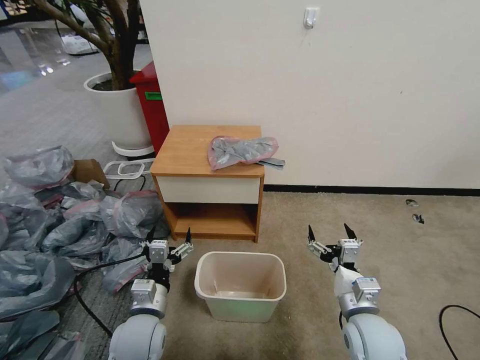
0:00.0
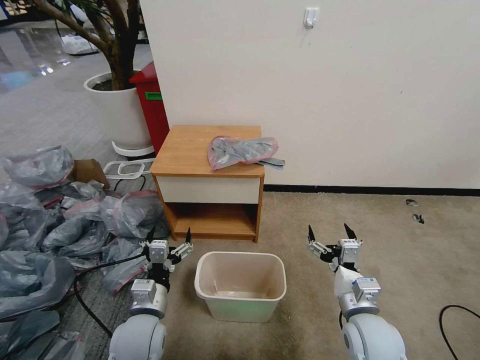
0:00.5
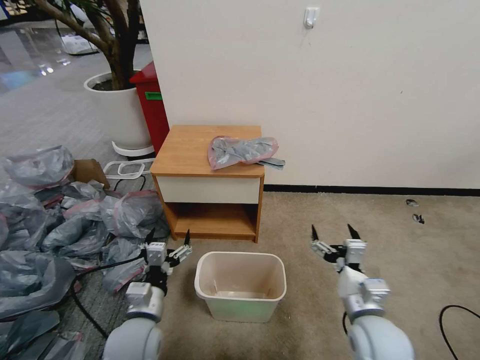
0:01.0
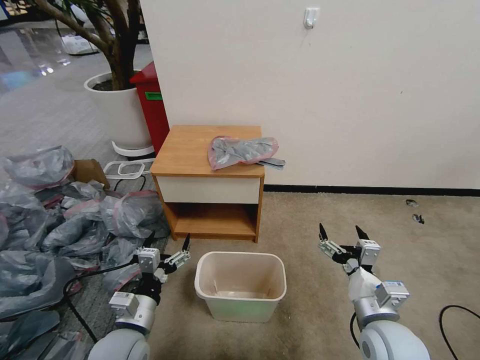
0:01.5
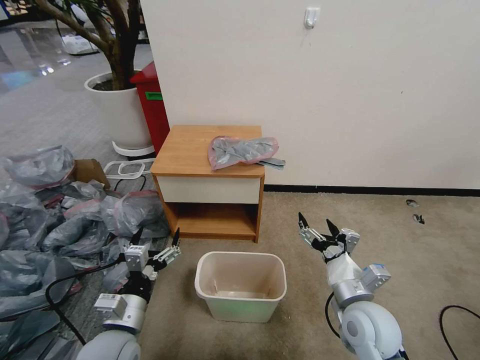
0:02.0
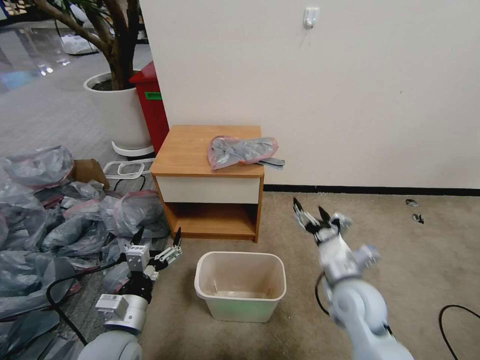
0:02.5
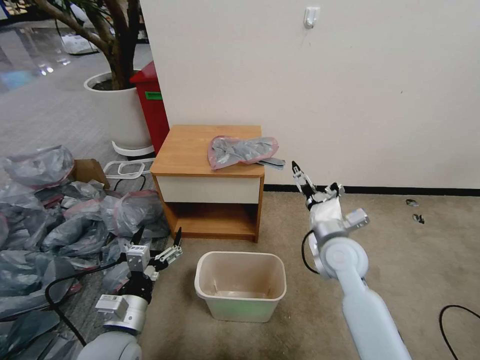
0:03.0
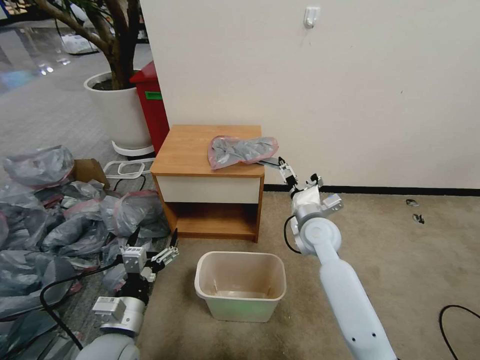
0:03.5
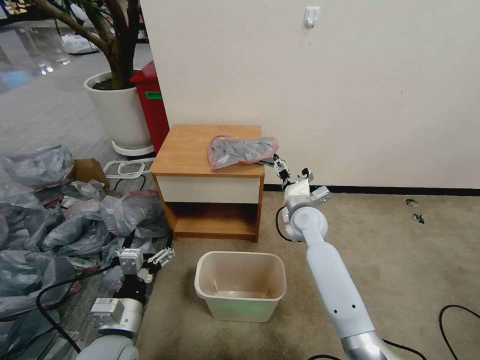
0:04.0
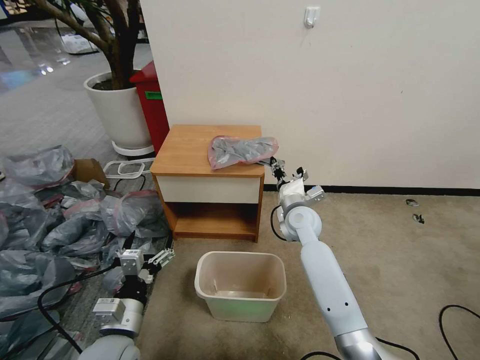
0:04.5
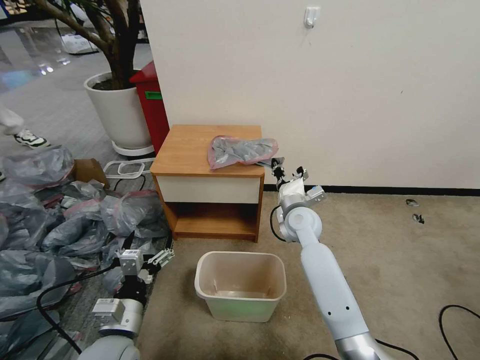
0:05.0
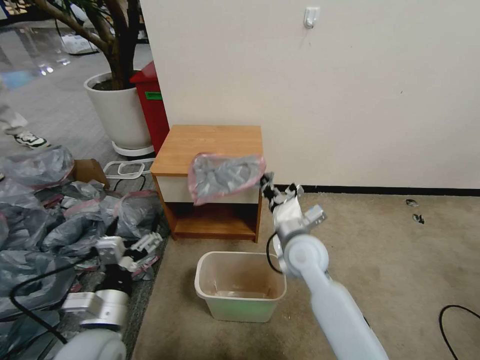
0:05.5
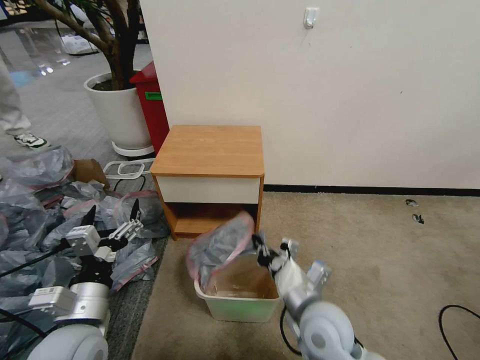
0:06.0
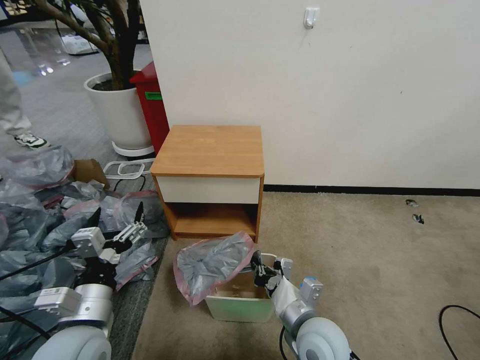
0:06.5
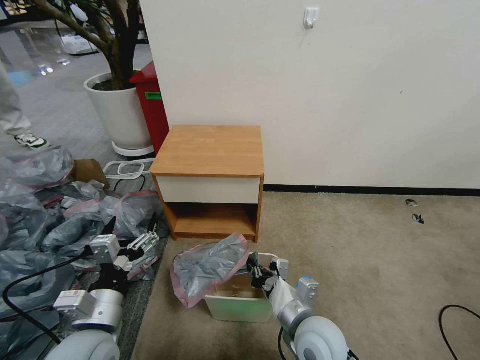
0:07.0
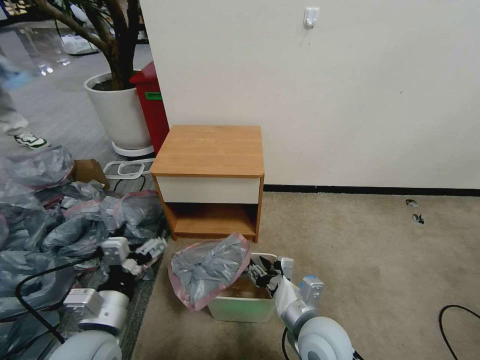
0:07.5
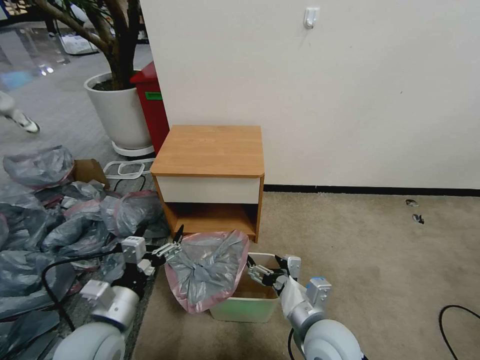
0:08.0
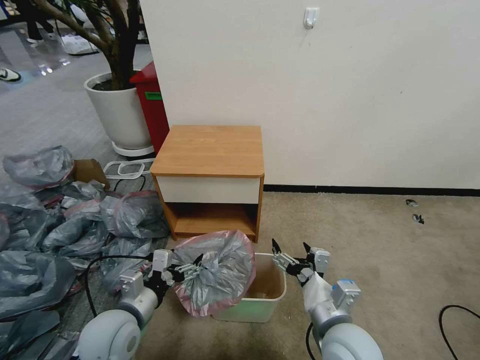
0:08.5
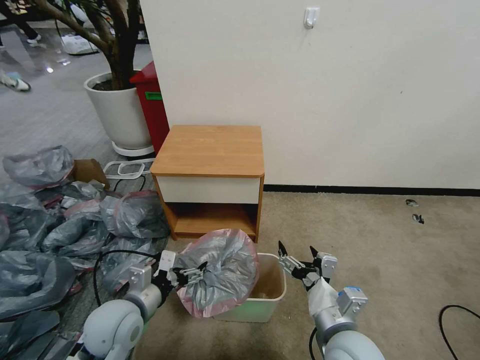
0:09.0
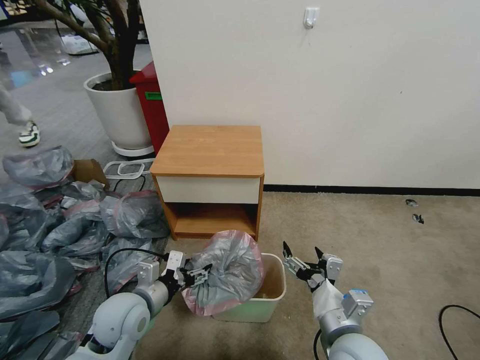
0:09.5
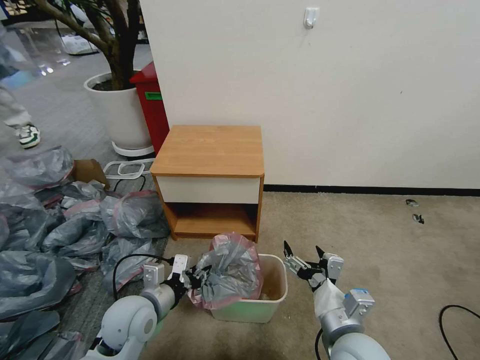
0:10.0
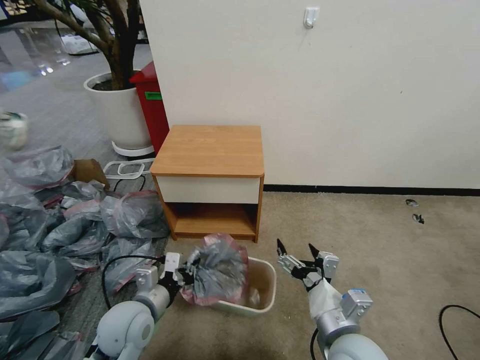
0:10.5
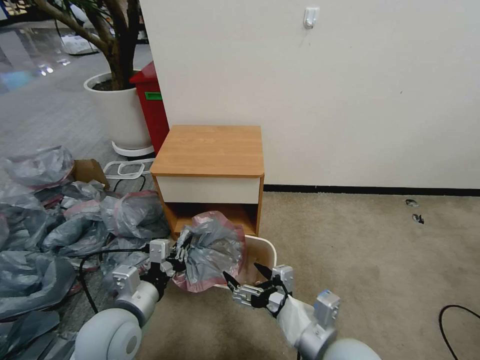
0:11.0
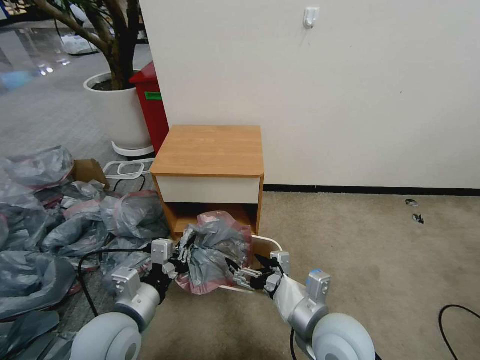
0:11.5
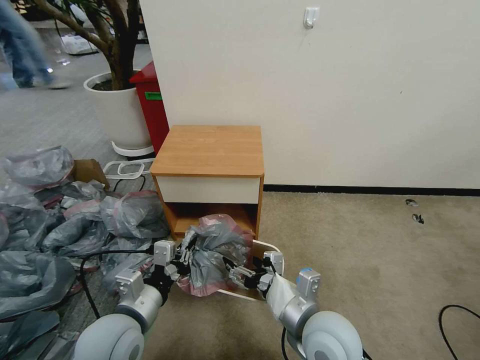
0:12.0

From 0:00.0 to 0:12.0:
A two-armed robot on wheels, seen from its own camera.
Task of the whole recording: Pick up the garbage bag from the table and place it over the trash can.
From 0:02.0 to 0:04.0: The right gripper heads forward, covering about 25 cm.
From 0:04.0 to 0:06.0: The right gripper moves backward, roughly 25 cm, and closes up; the left gripper shifts roughly 10 cm upward.
From 0:06.0 to 0:08.0: The right gripper opens.
From 0:08.0 to 0:10.0: The left gripper heads forward, covering approximately 5 cm, and closes its fingers.
From 0:10.0 to 0:12.0: The right gripper shifts some 5 cm to the left. Meanwhile the left gripper moves upward and backward, roughly 10 cm.

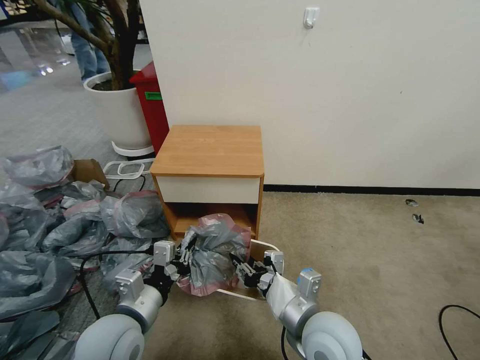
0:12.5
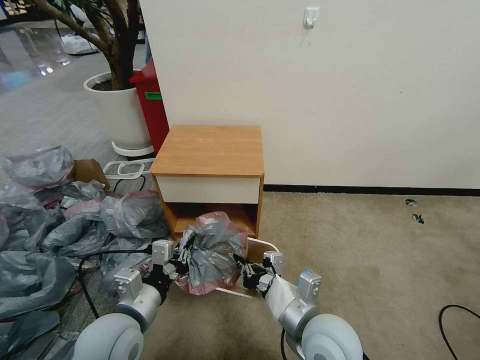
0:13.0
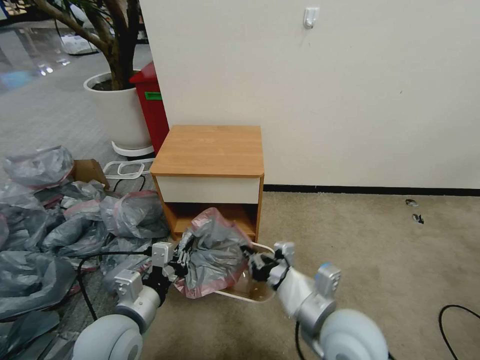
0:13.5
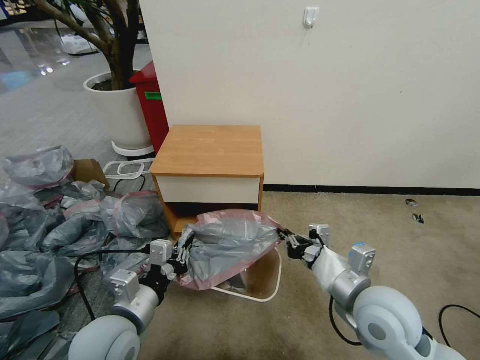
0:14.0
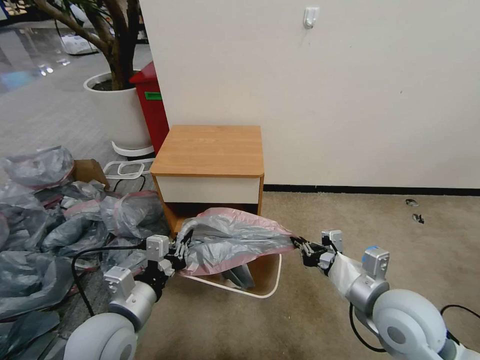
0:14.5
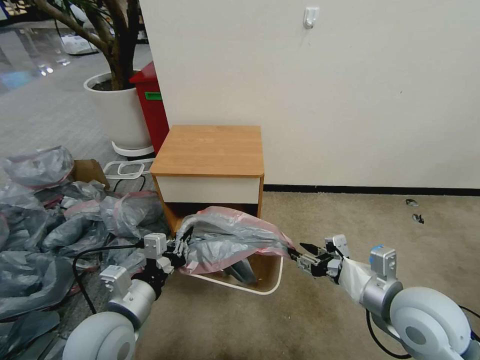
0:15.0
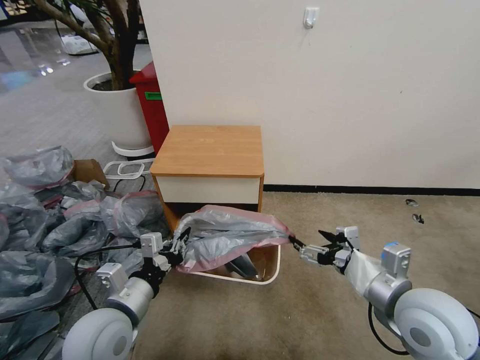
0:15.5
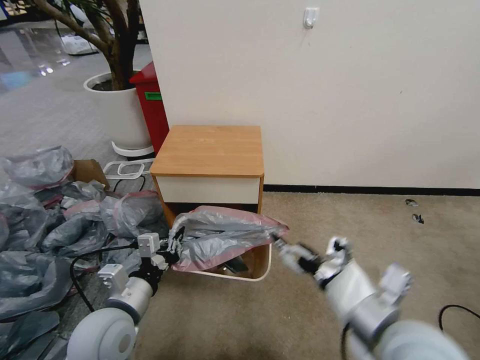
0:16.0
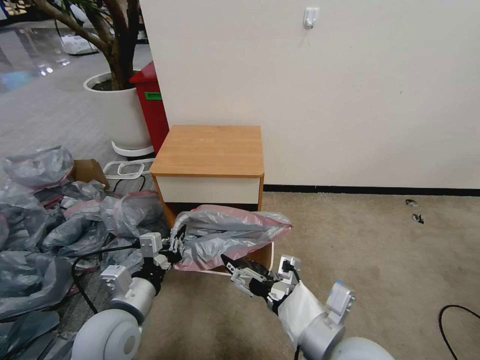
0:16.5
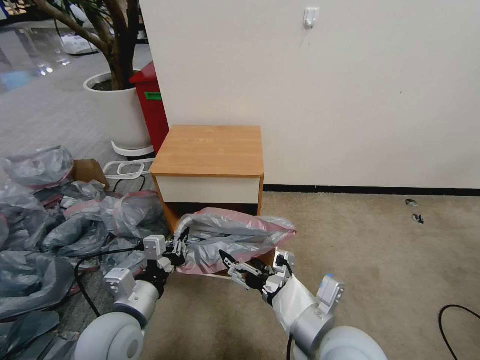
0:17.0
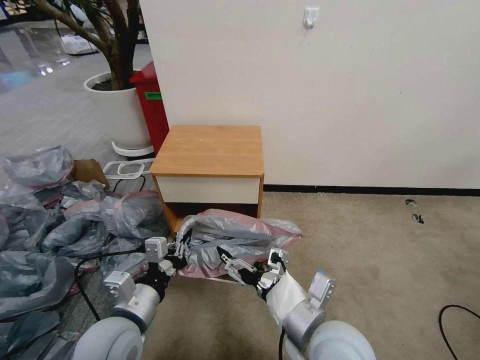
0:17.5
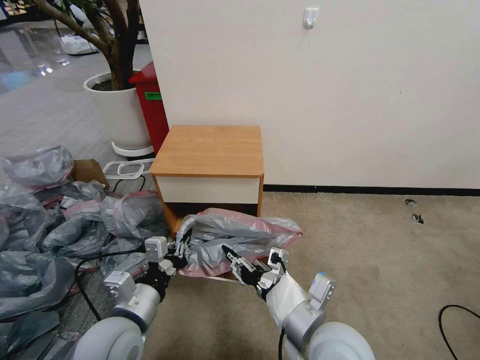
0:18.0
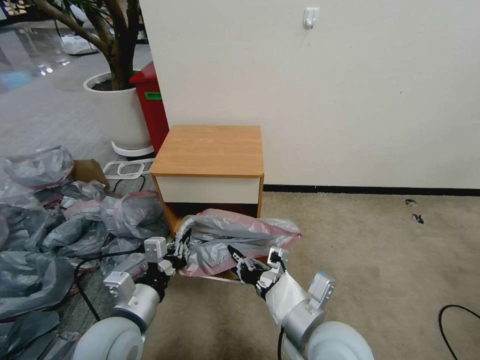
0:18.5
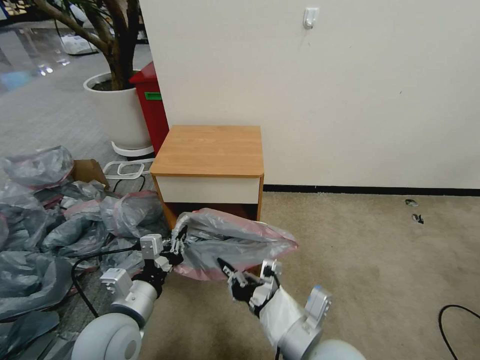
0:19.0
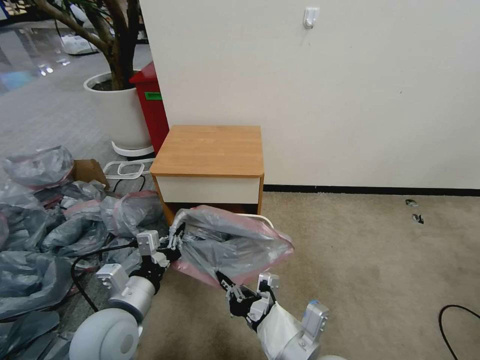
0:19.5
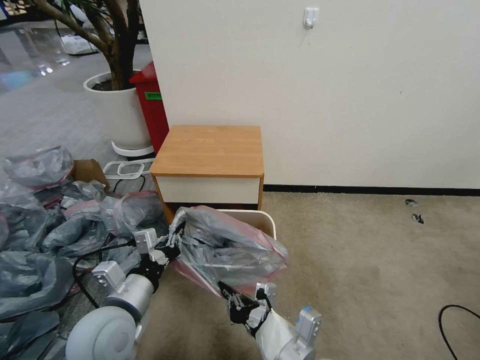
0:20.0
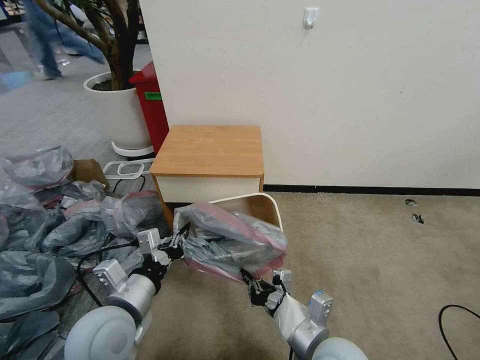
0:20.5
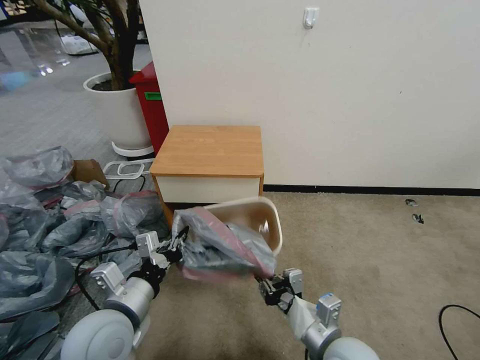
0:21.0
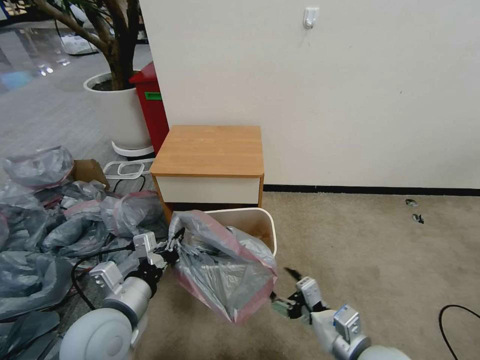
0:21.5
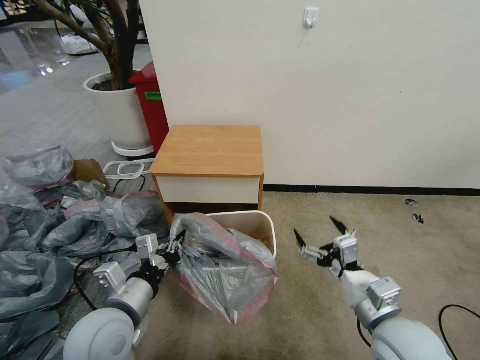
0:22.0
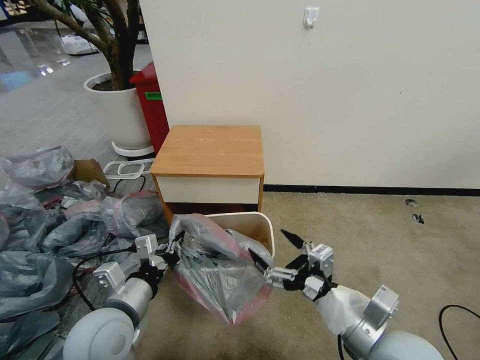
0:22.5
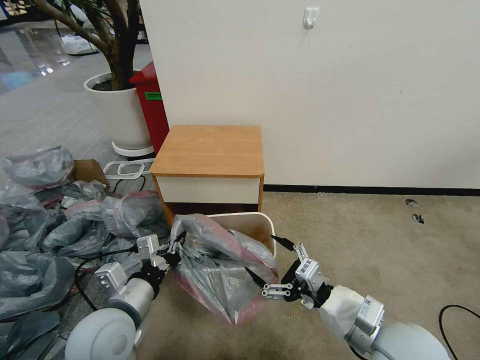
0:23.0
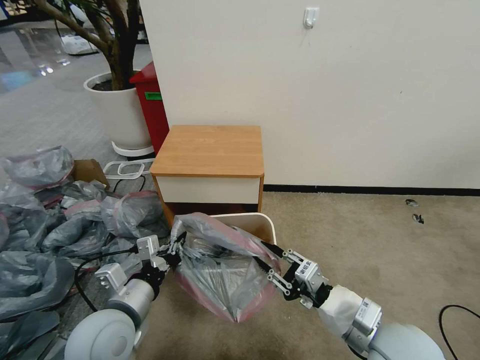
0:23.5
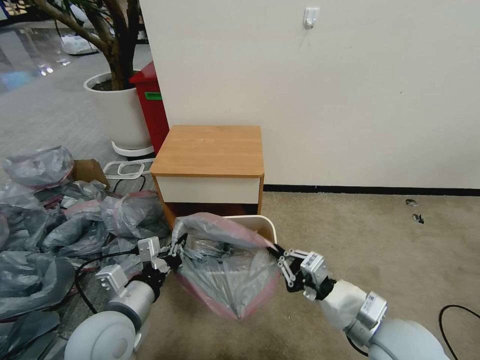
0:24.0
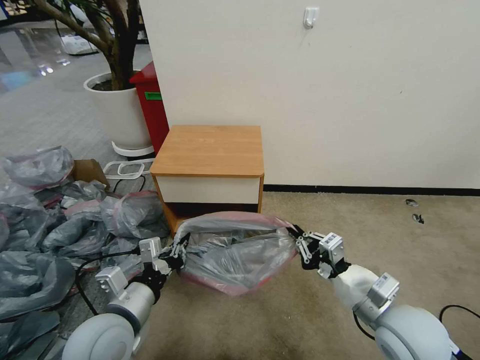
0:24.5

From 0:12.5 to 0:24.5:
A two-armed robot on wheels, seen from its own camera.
Task of the whole recording: Pick up the garbage bag from the table and place it over the trash can.
From 0:12.5 to 0:14.5: The right gripper is displaced to the right by some 10 cm.
From 0:14.5 to 0:16.5: The right gripper moves to the left and backward, some 15 cm, and opens.
From 0:16.5 to 0:18.5: The right gripper closes up.
From 0:18.5 to 0:20.5: The right gripper goes some 5 cm downward.
From 0:20.5 to 0:22.5: The right gripper moves upward and to the right, some 10 cm, and opens up.
From 0:22.5 to 0:24.5: The right gripper moves some 5 cm, and closes up.

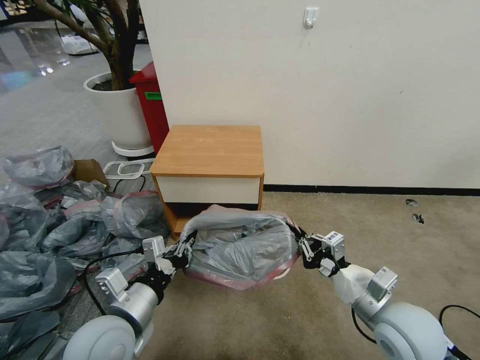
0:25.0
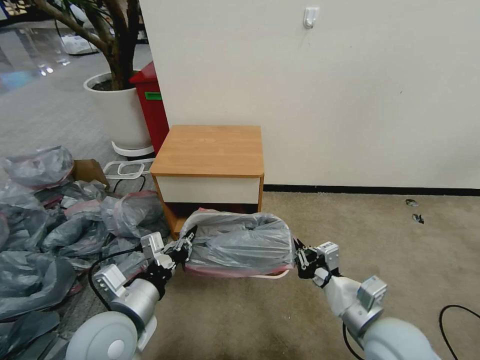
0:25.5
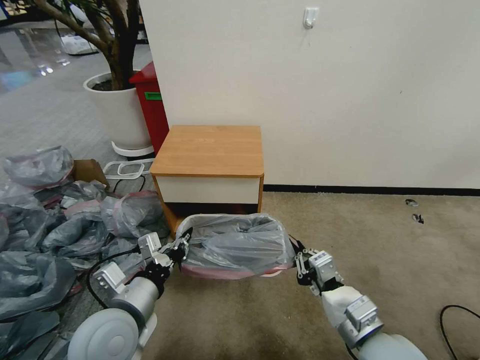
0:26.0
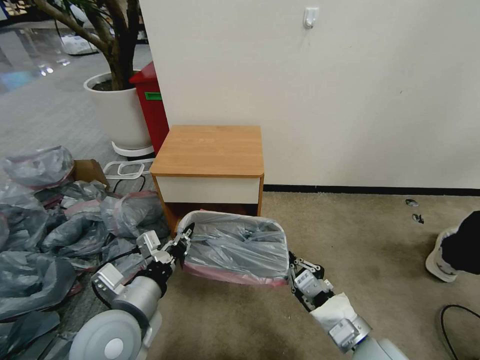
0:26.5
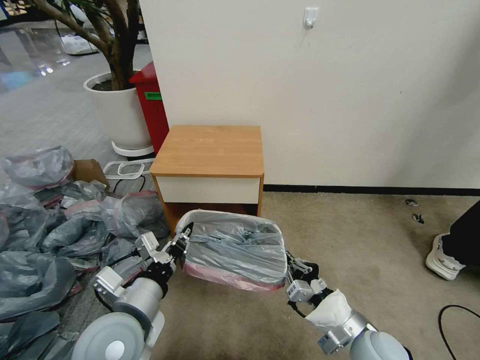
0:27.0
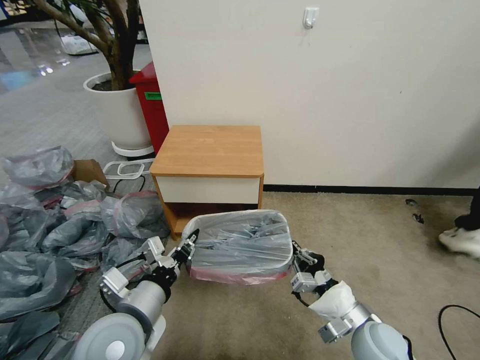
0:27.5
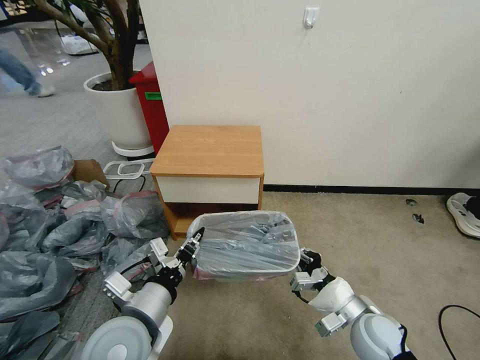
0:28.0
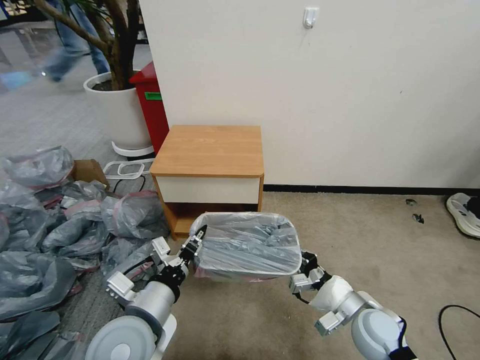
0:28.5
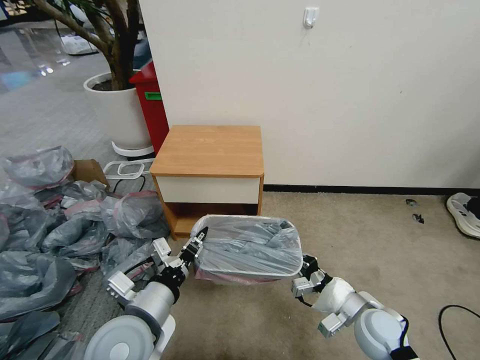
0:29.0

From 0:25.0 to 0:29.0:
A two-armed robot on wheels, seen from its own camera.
Task of the whole recording: Pick up the garbage bag from the table and place it over the trash can.
From 0:25.0 to 0:27.0: The right gripper goes roughly 10 cm downward.
From 0:27.0 to 0:29.0: The right gripper changes place by some 5 cm.
